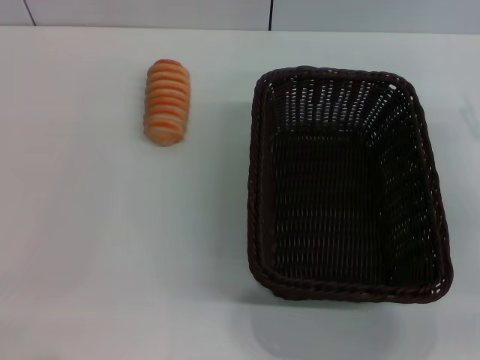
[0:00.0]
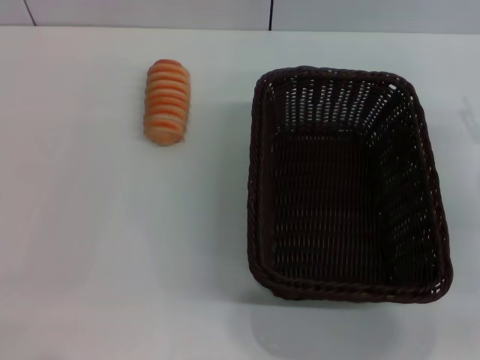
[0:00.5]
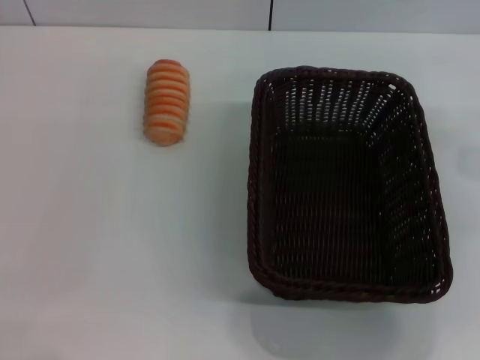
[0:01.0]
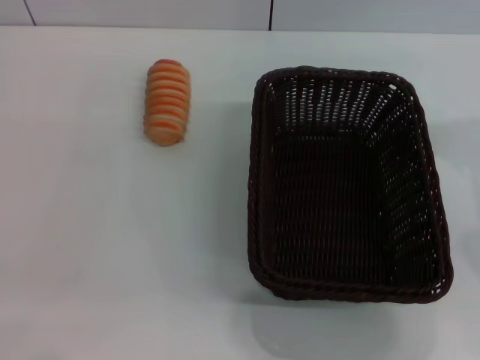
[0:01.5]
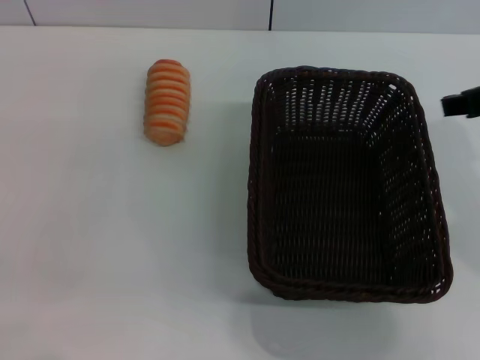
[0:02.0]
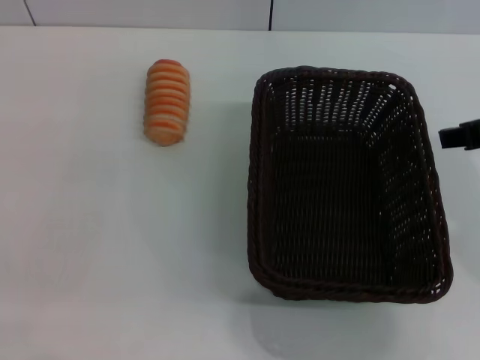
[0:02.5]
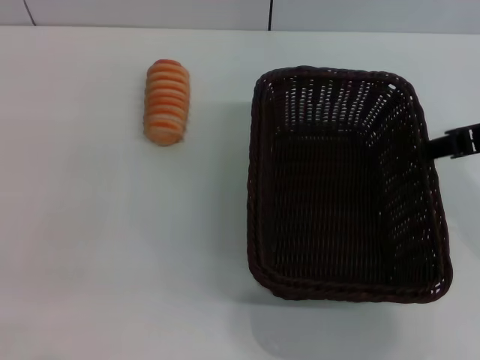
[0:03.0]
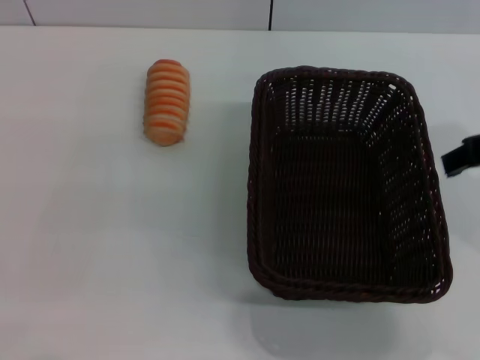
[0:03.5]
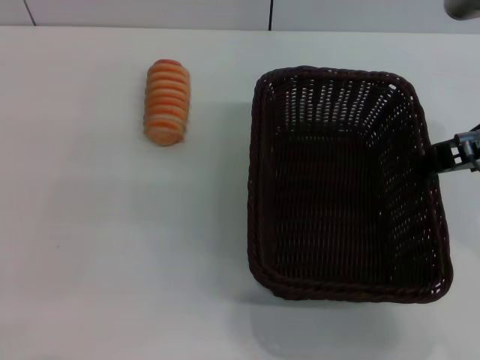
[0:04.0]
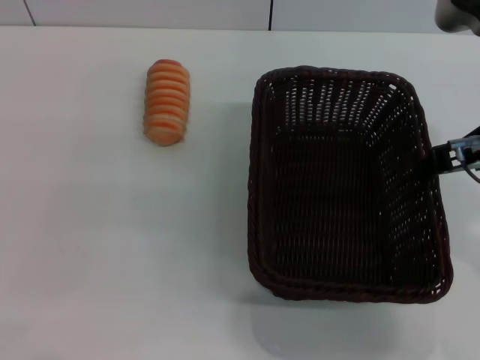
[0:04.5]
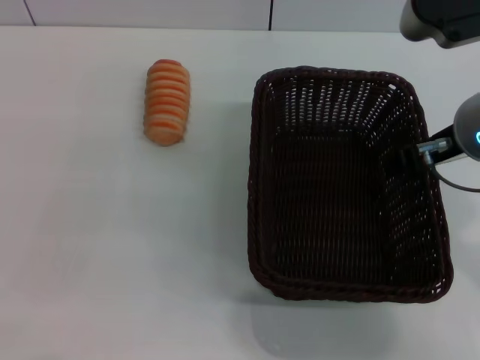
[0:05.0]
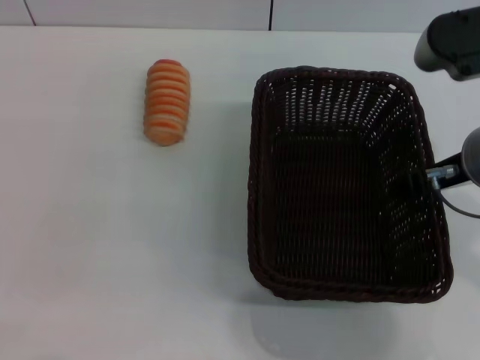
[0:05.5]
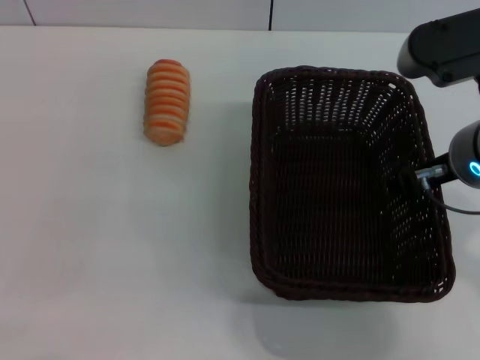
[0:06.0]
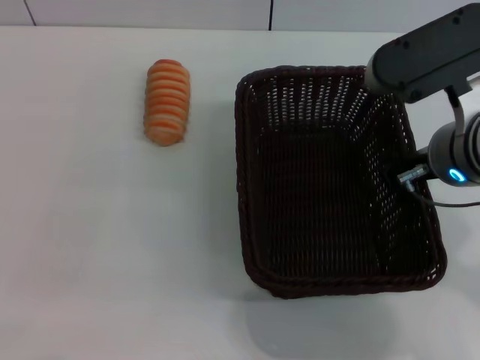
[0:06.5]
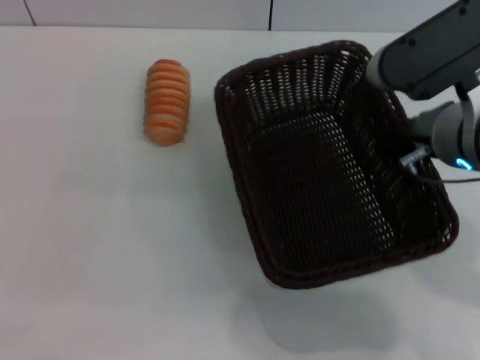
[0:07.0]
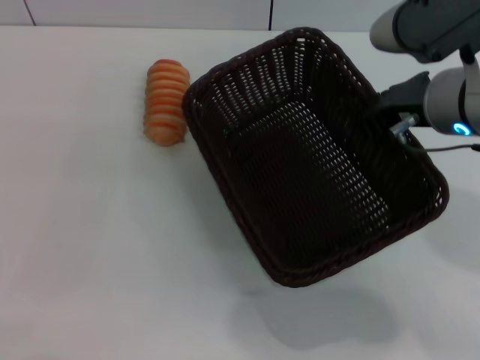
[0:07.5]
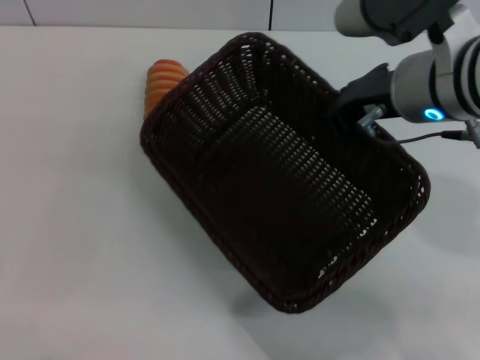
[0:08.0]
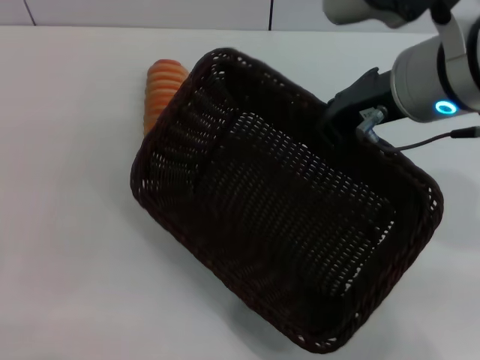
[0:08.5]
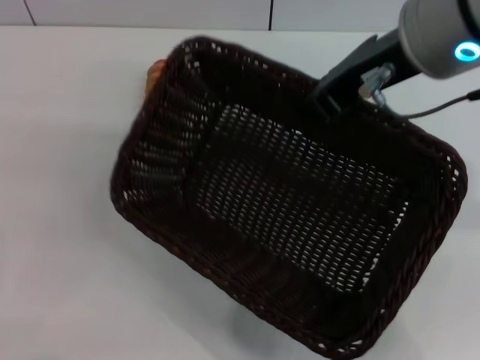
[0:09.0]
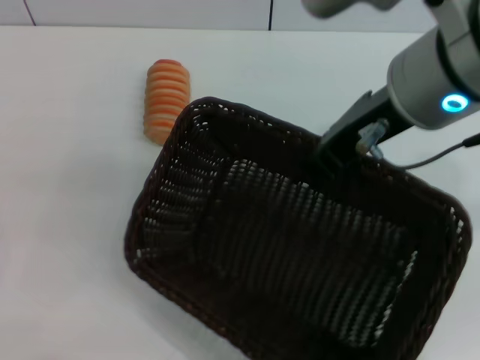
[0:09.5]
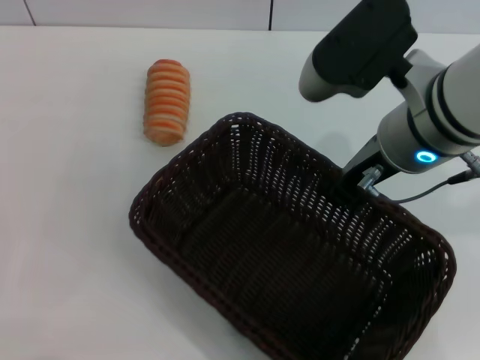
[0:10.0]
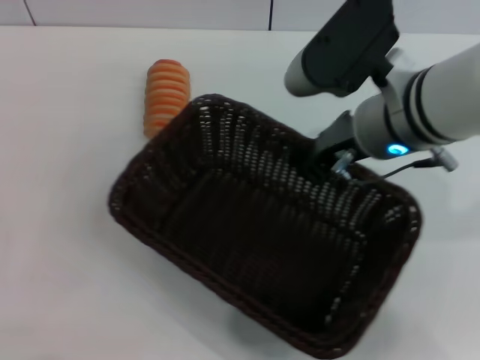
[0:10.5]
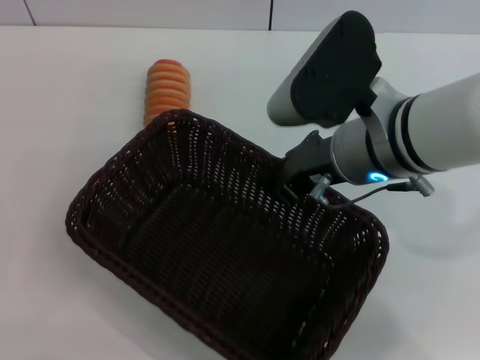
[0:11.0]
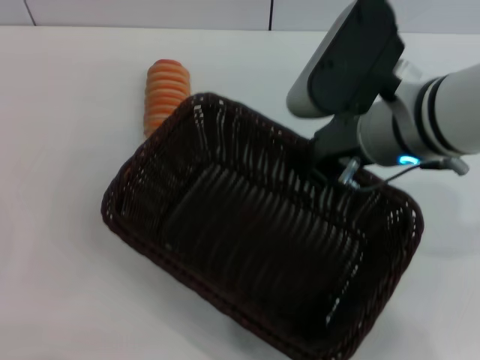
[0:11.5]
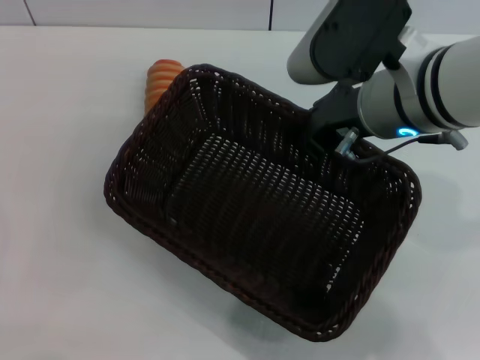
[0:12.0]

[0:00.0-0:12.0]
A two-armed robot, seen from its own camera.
Step, 0:00.0 to 0:07.5: Pick up the dark basket with the right gripper.
0:04.0 to 0:06.0: The right gripper goes about 5 cm downward.
0:06.0 to 0:08.0: The right gripper shifts by some 5 cm, and closes.
0:08.0 to 0:10.0: The right gripper reaches some 10 cm upward, then returns.

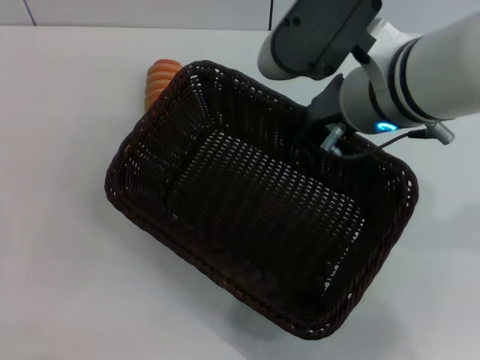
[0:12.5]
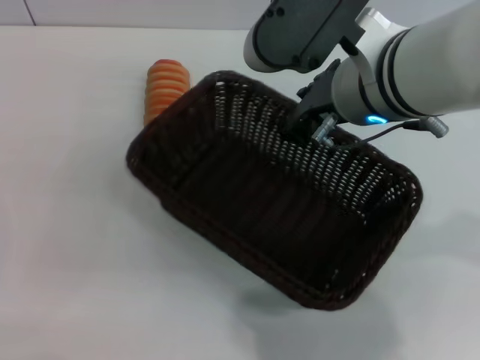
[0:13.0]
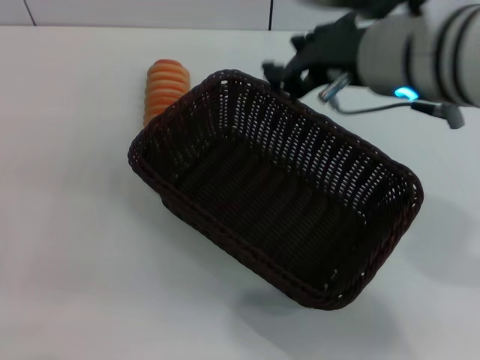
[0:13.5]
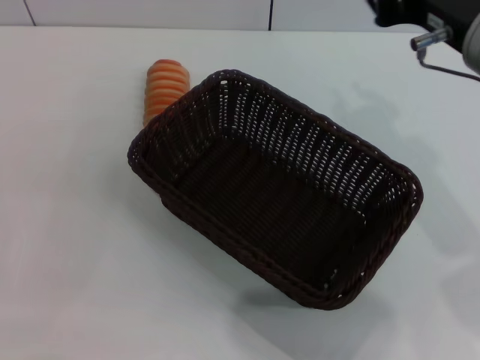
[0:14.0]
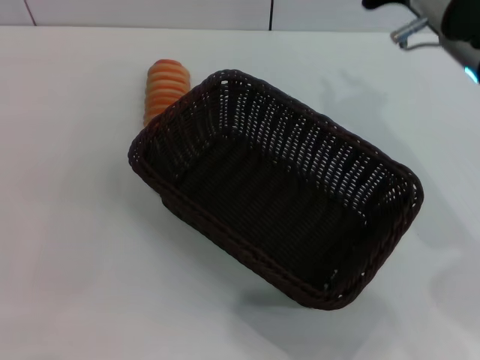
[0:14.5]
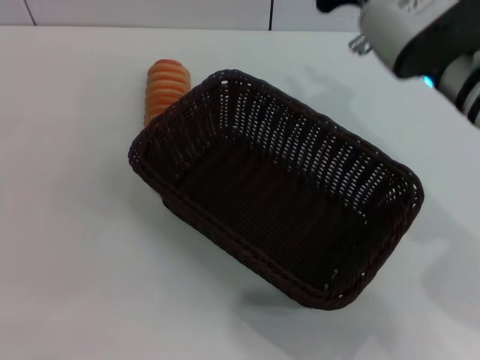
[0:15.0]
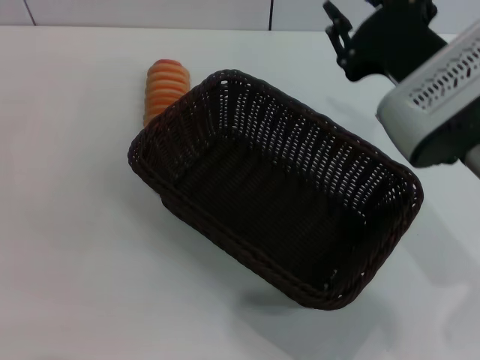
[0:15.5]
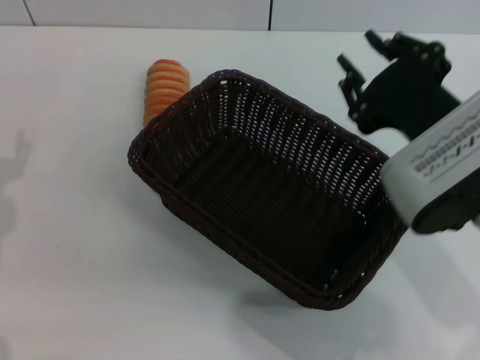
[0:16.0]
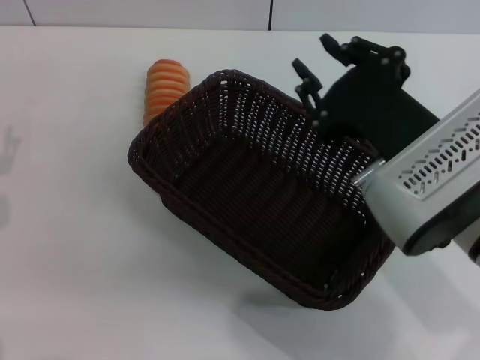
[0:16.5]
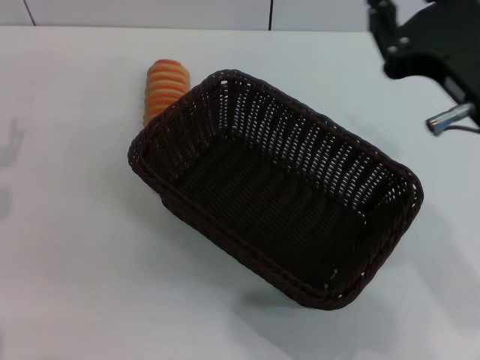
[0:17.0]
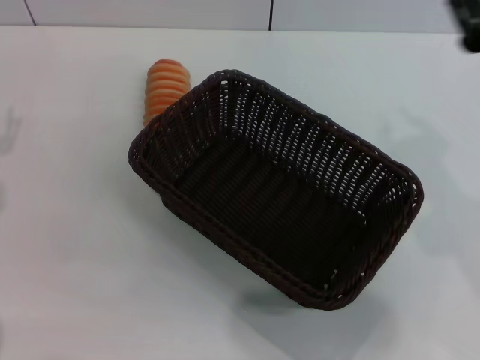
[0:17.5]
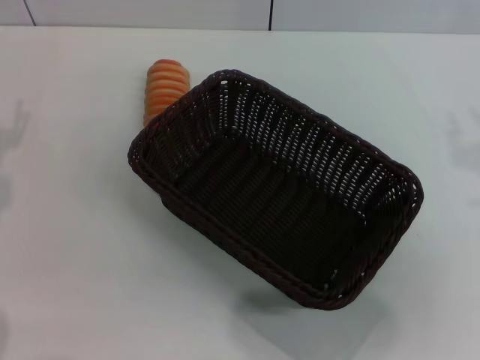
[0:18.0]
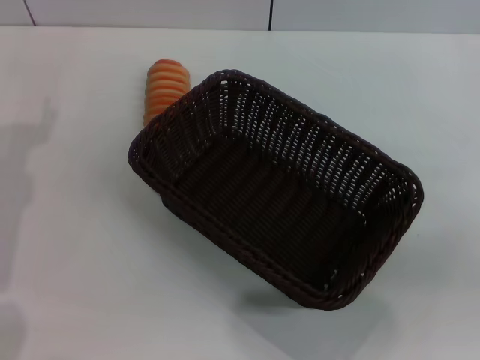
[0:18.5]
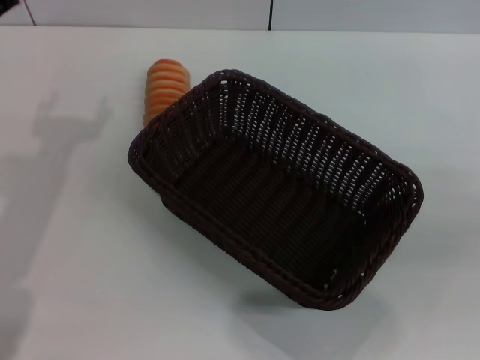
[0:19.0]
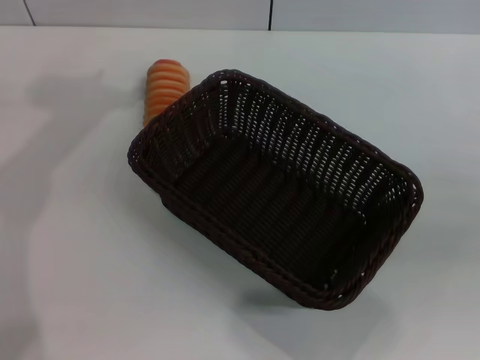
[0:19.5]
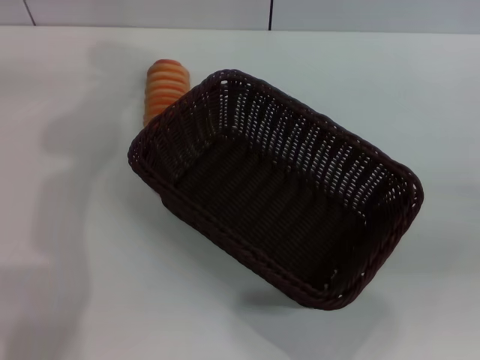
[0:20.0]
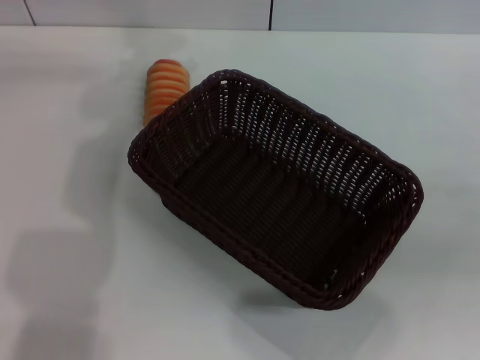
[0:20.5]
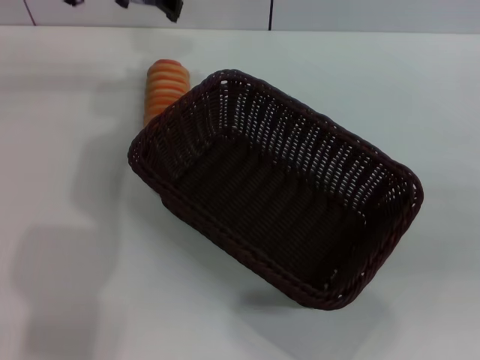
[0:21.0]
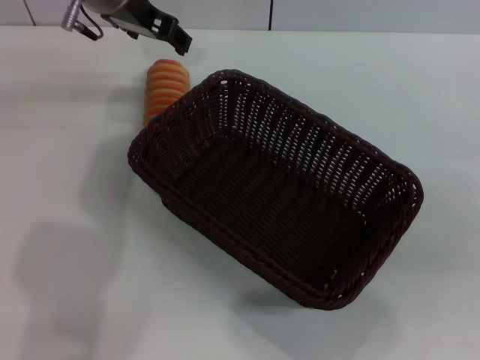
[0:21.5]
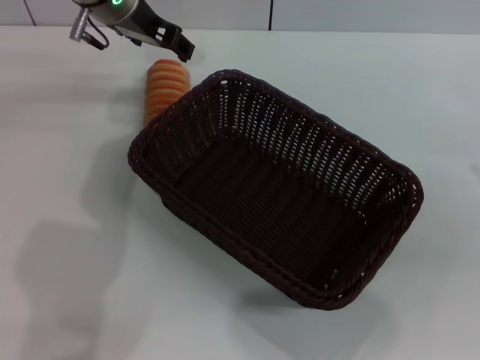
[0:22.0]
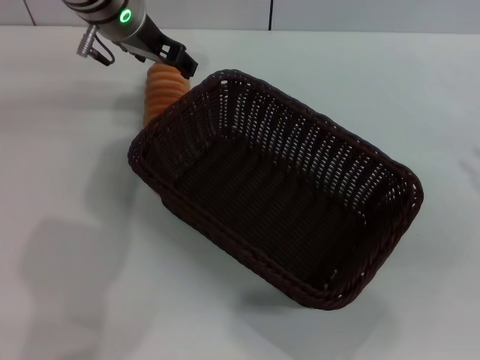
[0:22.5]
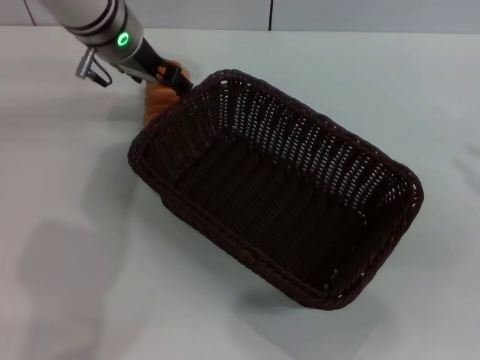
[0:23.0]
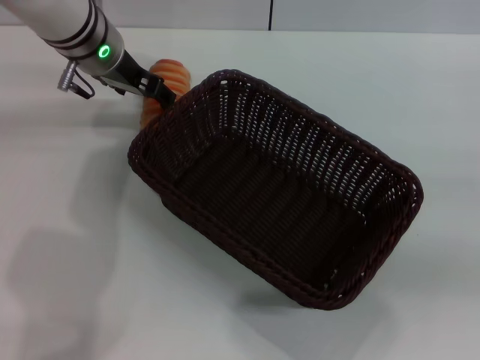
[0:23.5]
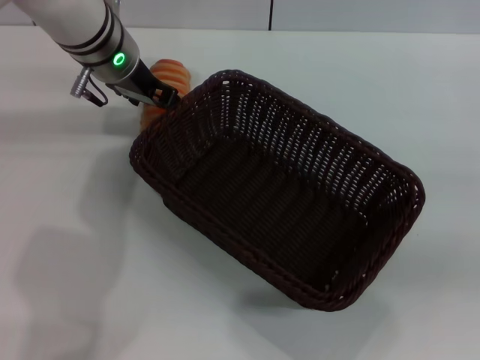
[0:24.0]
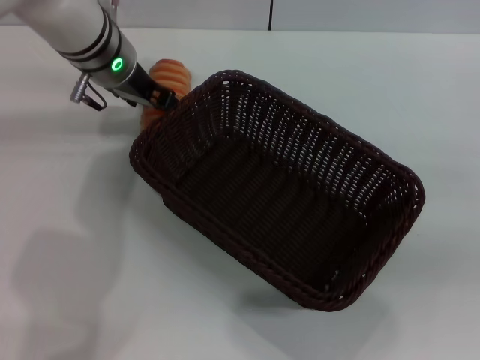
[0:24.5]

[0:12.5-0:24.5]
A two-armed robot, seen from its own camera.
0:12.5 to 0:14.5: The right gripper moves to the right, some 5 cm.
0:14.5 to 0:16.5: The right gripper moves backward and downward, approximately 10 cm.
0:16.5 to 0:18.5: The right gripper moves to the right, roughly 25 cm. The left gripper shifts by roughly 5 cm.
0:18.5 to 0:20.5: The left gripper goes some 25 cm forward, to the right and upward.
0:20.5 to 0:22.5: The right gripper changes place by some 5 cm, while the left gripper travels downward by roughly 10 cm.
0:22.5 to 0:24.5: The right gripper travels to the right by approximately 5 cm.

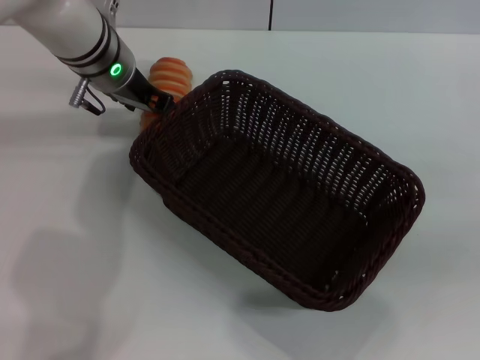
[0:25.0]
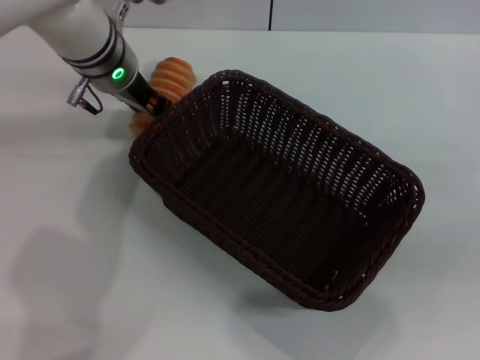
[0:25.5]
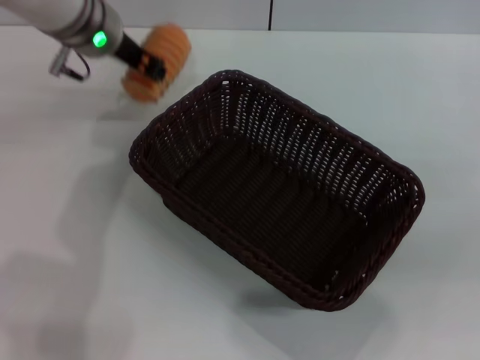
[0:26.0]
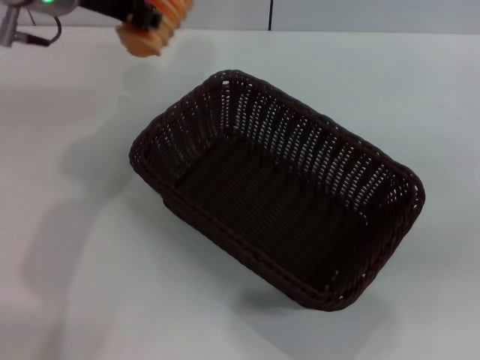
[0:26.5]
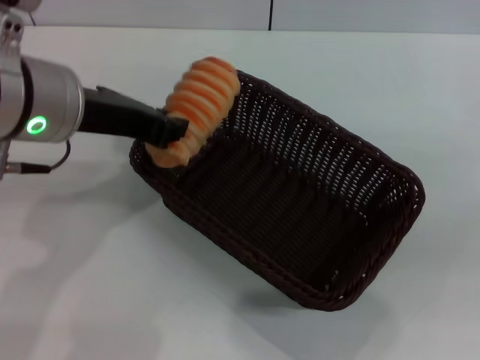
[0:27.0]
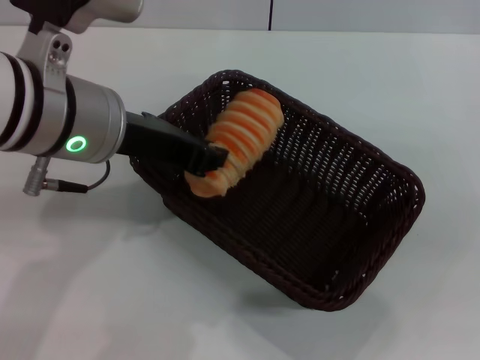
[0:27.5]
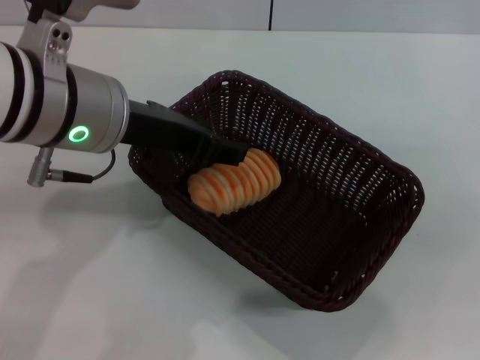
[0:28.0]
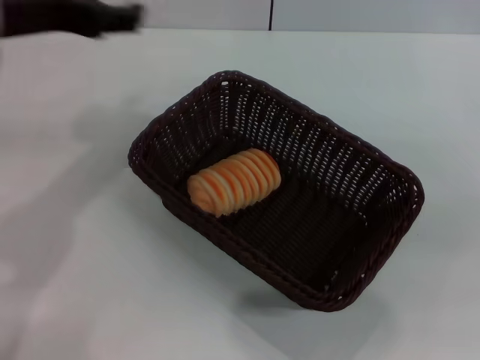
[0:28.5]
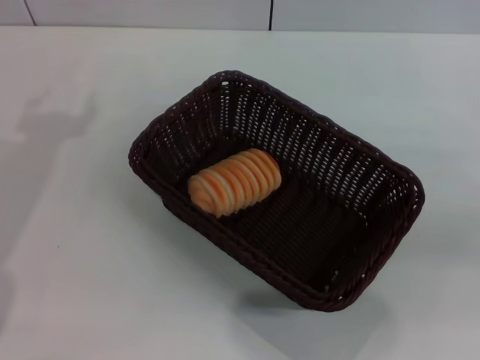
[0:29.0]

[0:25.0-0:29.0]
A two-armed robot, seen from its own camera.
Step, 0:26.5 to 0:28.0: Place the long bread into the dark basket with the left gripper.
0:25.0 to 0:27.0: The left gripper shifts about 15 cm backward and upward, and closes.
0:27.0 to 0:29.0: The left gripper heads to the left, covering roughly 10 cm, and opens its fingers.
